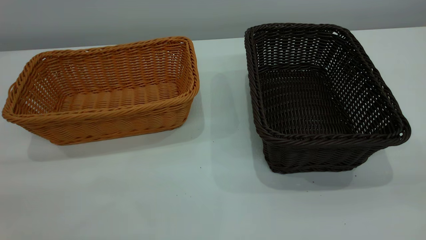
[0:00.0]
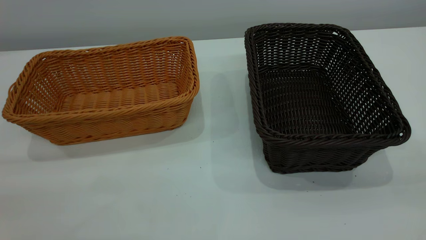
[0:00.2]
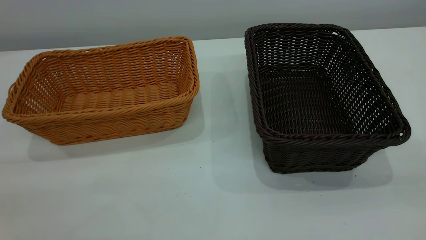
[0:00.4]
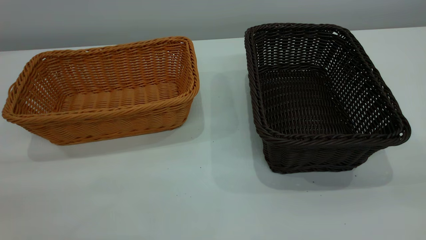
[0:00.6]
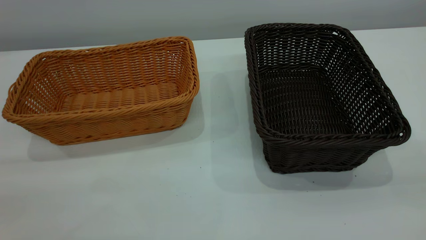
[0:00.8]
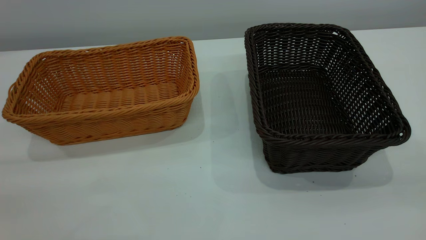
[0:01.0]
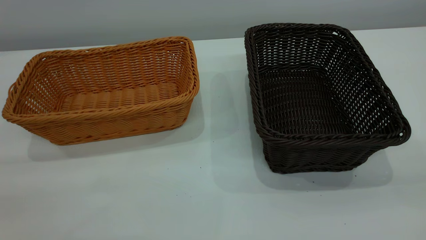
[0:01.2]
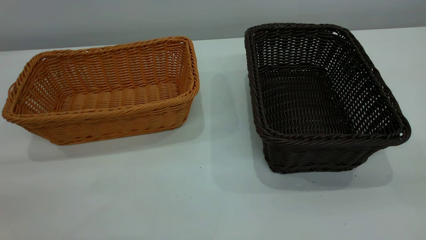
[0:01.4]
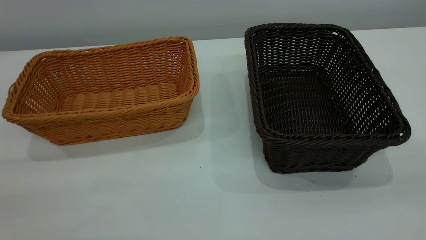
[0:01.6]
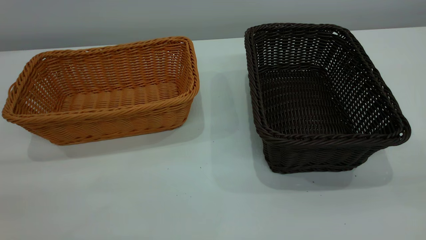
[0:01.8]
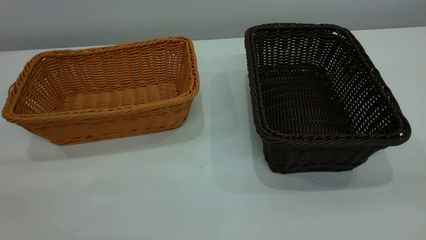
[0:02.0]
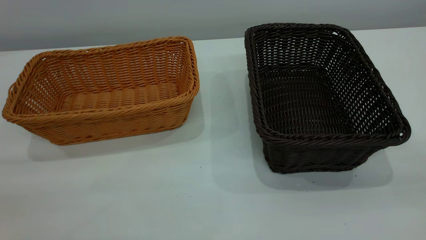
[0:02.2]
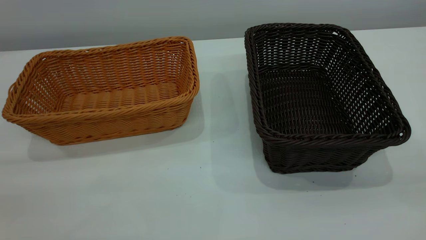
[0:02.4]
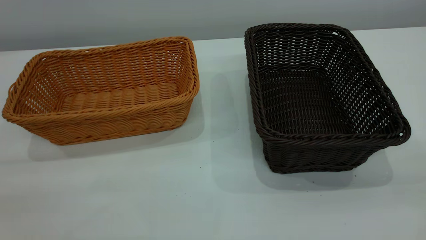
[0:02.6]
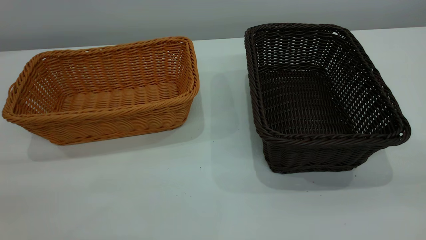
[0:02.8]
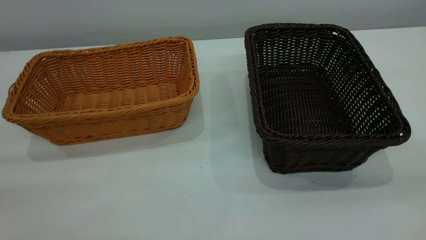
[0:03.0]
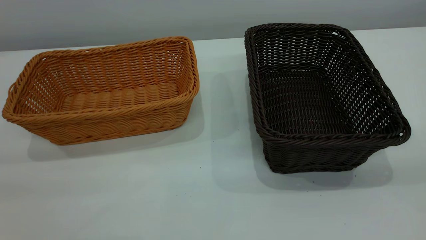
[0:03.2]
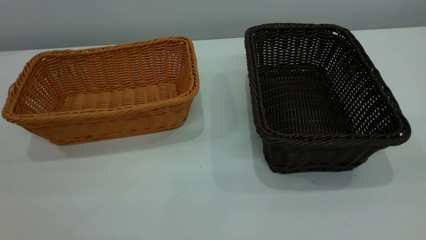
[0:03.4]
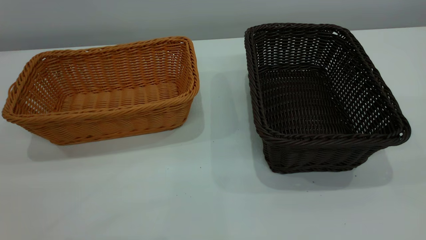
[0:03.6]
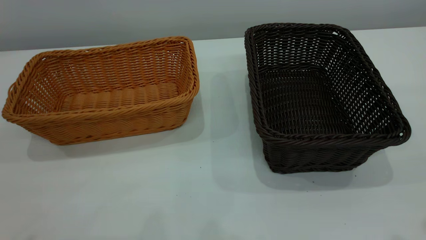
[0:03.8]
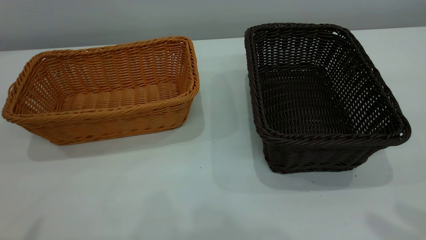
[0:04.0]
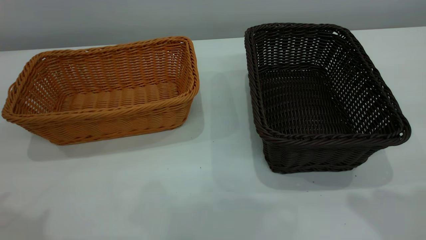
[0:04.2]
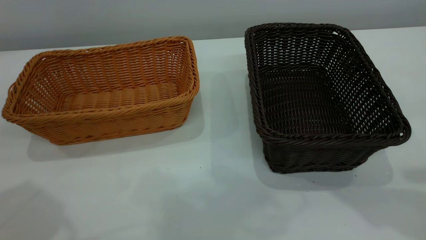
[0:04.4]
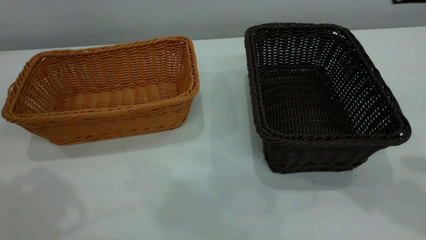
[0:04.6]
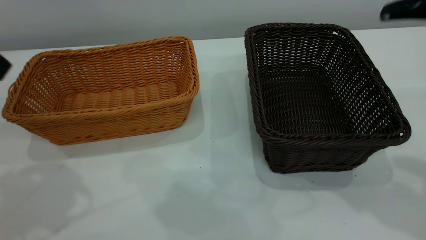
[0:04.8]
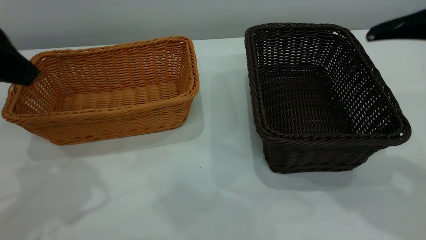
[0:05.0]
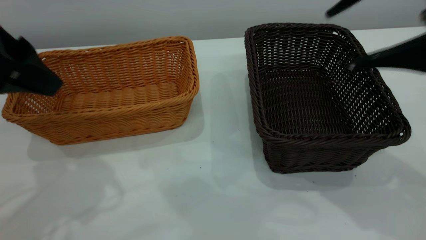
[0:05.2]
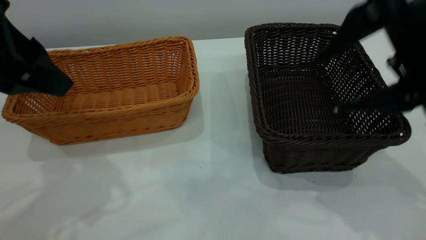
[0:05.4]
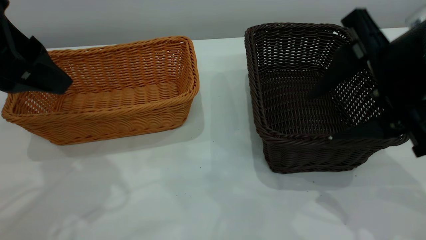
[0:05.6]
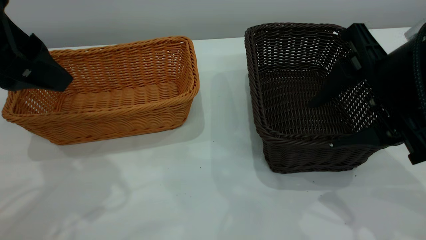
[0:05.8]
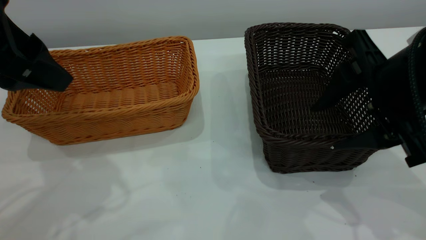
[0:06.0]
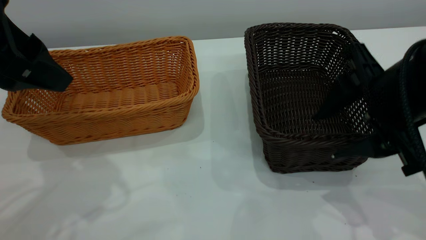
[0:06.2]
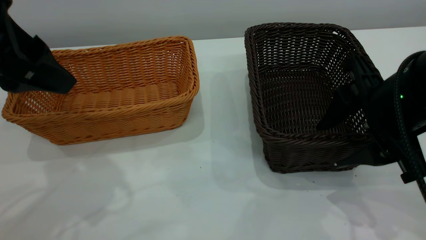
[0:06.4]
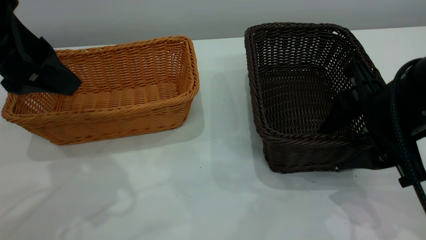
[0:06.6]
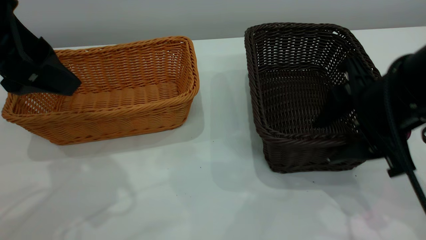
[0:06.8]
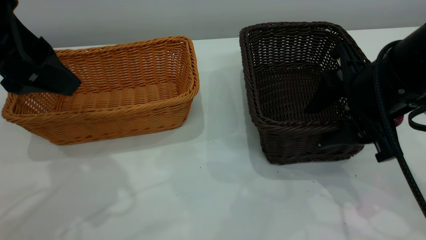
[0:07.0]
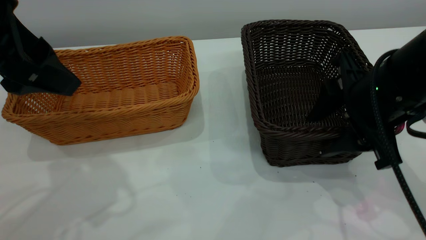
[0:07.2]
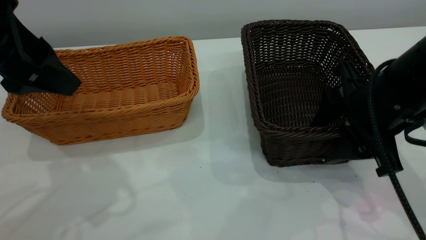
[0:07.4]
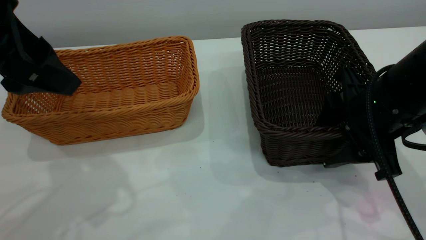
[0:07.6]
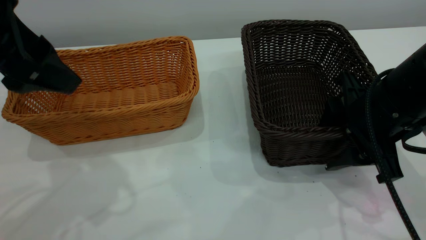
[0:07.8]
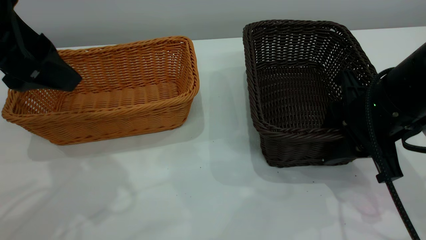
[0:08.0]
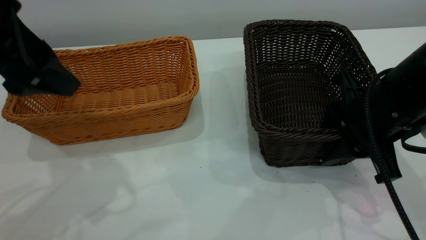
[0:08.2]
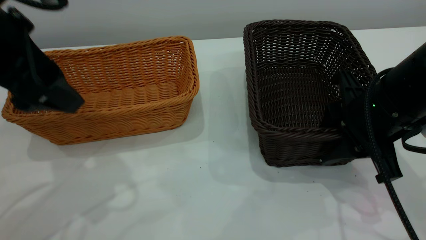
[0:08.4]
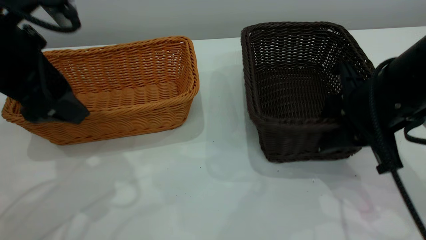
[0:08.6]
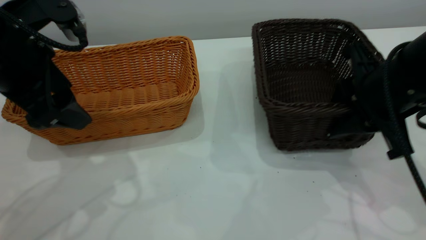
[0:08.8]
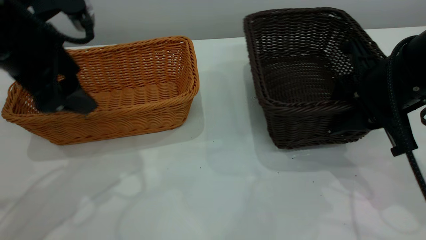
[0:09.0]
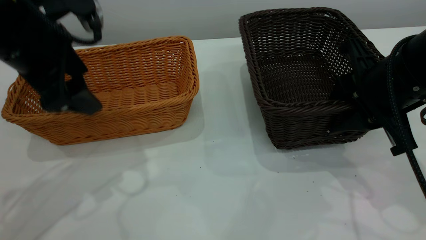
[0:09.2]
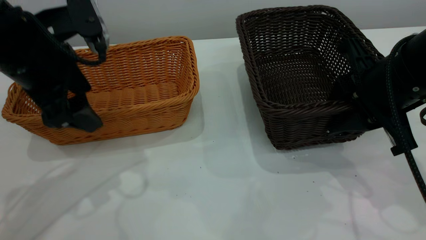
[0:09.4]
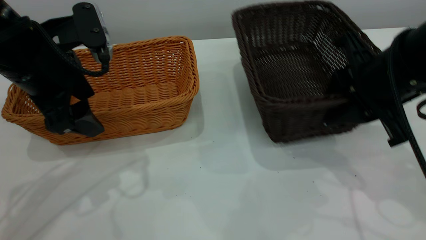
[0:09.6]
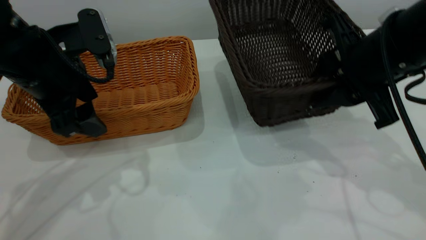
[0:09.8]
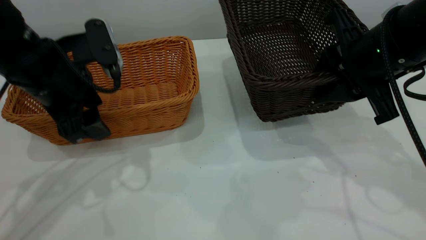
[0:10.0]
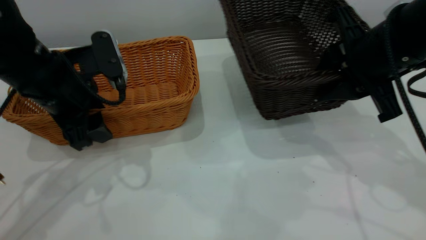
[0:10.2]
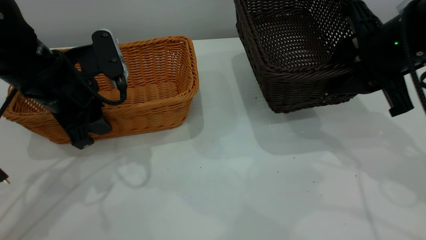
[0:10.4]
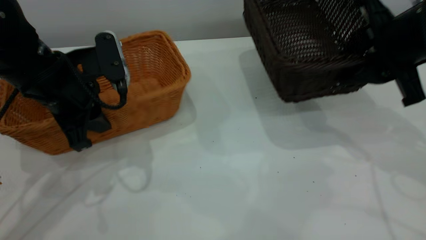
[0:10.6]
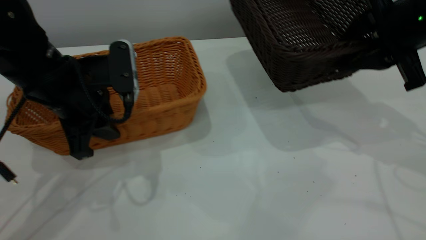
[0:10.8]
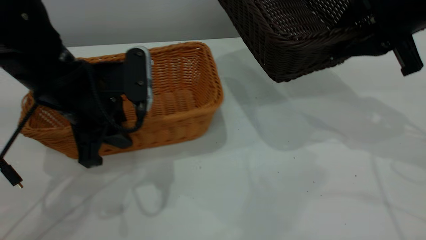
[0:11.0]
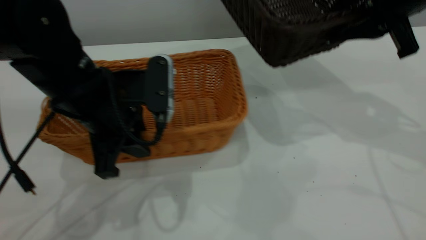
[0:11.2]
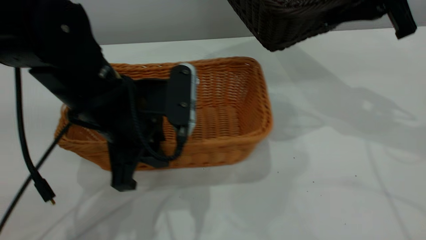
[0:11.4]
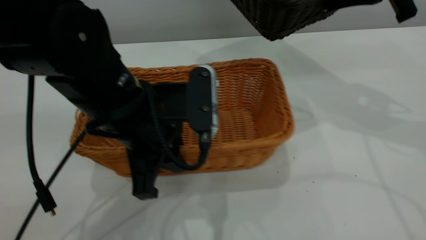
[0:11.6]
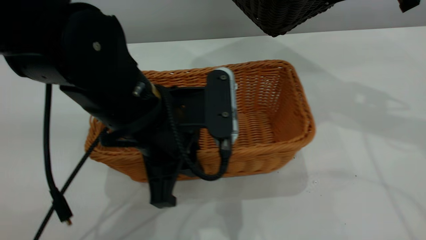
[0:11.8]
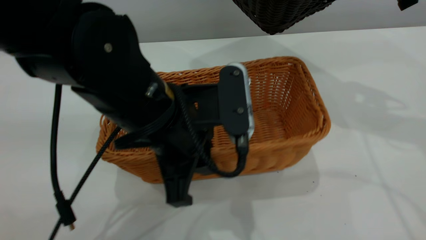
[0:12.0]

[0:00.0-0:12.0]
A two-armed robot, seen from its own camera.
Task of the whole recording: the left gripper grasp the brown basket and place it in the center of the table, the right gripper grasp the black basket and place it inside the brown one.
Step, 0:00.0 to 0:10.4: Pick up the light basket with the right gripper.
0:00.0 to 0:01.6: The two grippers keep their place.
0:04.4 to 0:06.0: The left gripper goes roughly 10 cm downward and forward. Meanwhile the right gripper shifts roughly 15 cm downward.
0:06.0 to 0:07.6: The right gripper moves downward, some 5 cm.
0:07.6 to 0:09.0: The right gripper closes. Meanwhile the left gripper shifts by about 5 cm.
0:09.0 to 0:10.4: The left gripper is displaced downward by about 10 cm, and closes.
0:10.4 to 0:12.0: The right gripper moves upward and forward, roughly 10 cm. The left gripper heads to the right and backward, covering some 15 cm.

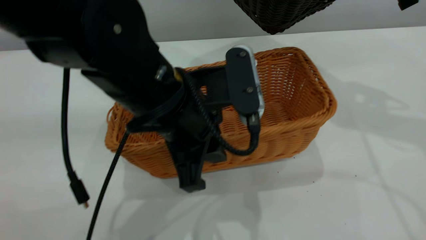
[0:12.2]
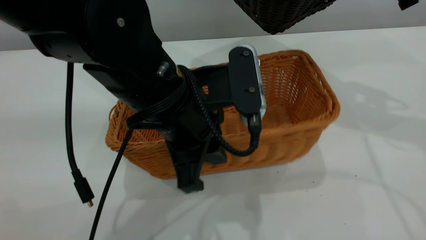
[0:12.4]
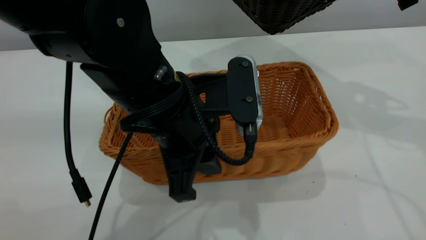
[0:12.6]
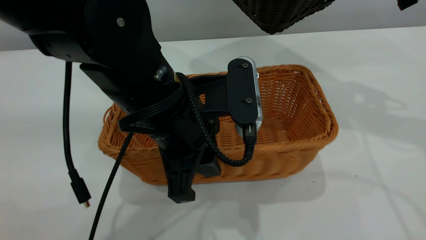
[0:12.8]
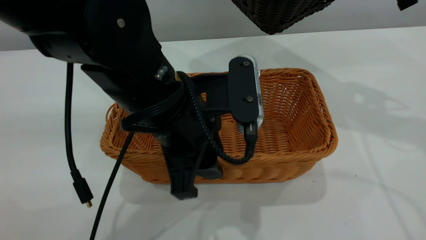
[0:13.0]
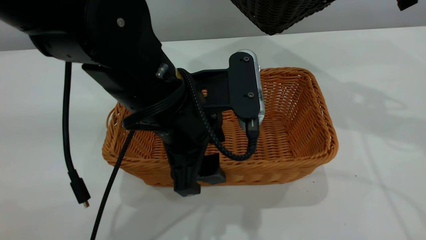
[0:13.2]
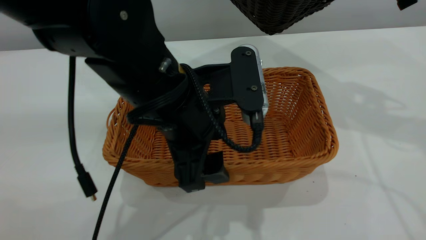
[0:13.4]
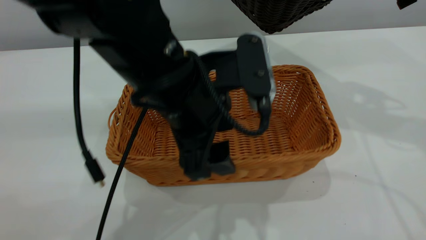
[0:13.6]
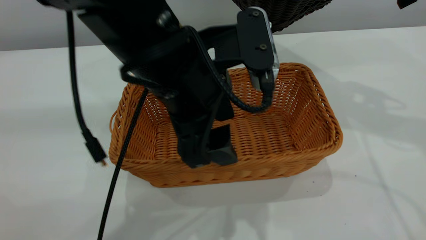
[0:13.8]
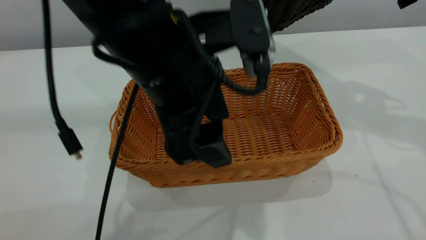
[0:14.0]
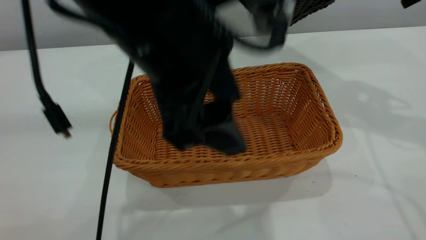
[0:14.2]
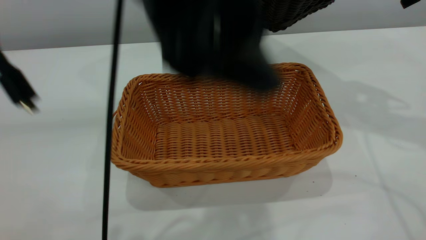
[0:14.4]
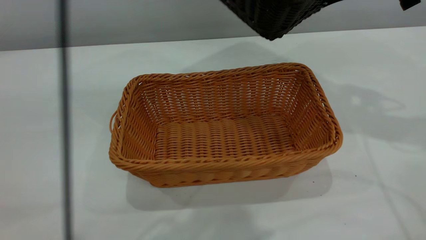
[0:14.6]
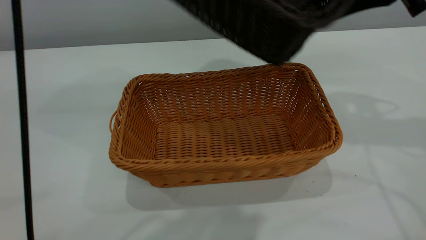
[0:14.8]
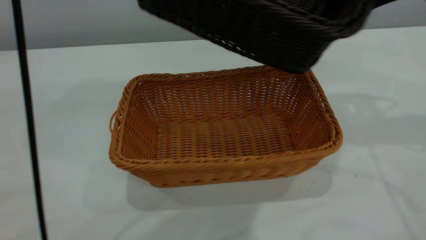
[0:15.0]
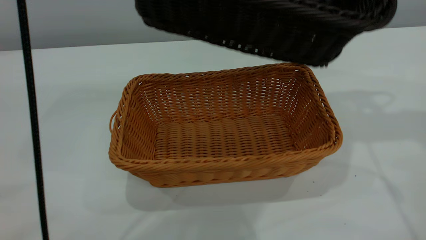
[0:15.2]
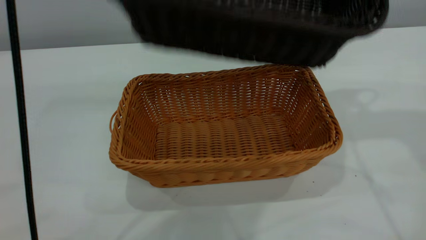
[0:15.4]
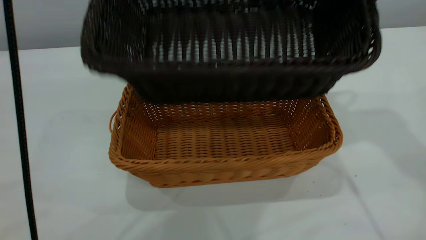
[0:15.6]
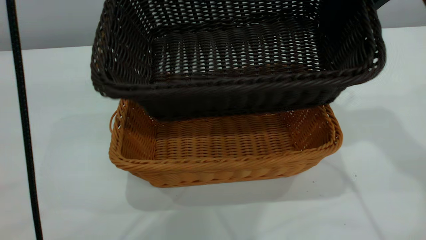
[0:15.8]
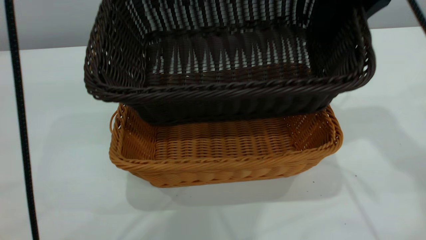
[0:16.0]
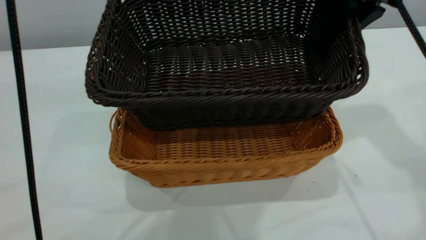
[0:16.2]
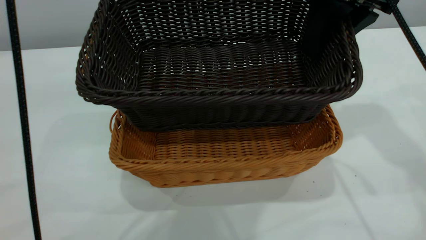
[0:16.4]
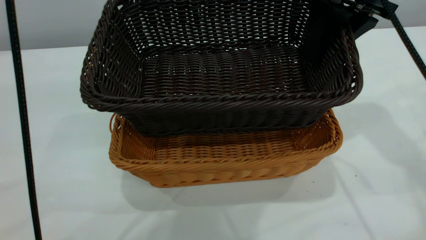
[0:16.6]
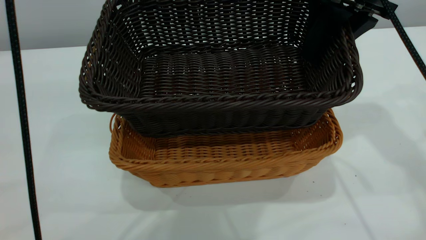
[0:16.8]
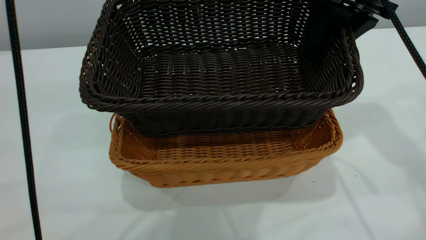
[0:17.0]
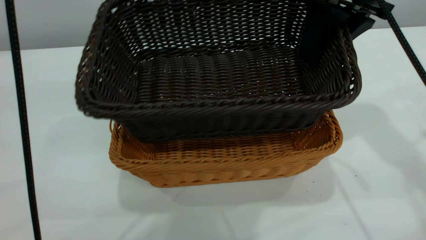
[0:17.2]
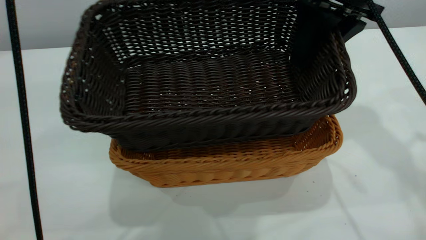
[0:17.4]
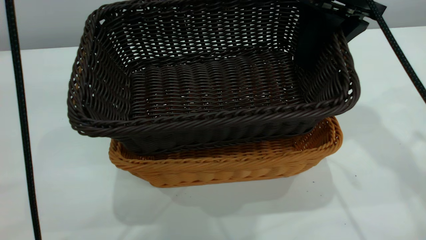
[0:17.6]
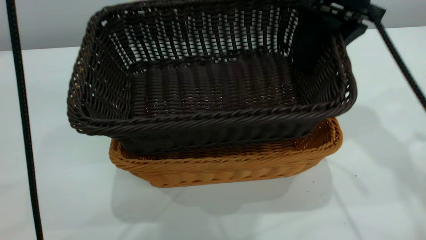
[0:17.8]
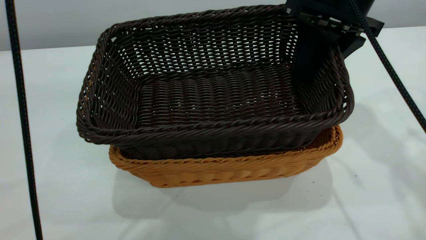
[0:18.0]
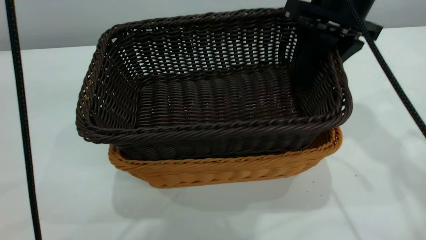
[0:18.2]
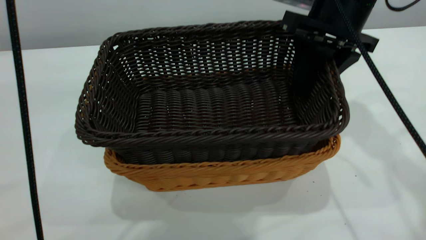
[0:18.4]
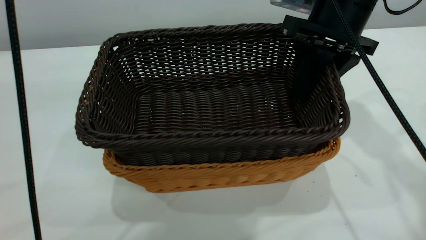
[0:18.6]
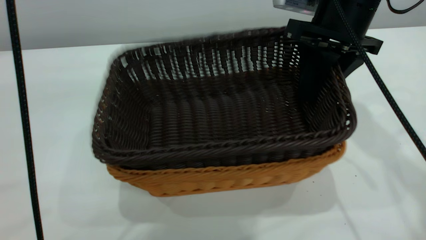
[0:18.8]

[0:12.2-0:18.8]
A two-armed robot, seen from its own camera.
Task of the whole recording: the left gripper grasp the brown basket and place it in the center of the table, the right gripper grasp the black basket and place it inside the brown one.
Step, 0:12.2 to 0:14.0: Place the light-colored basket in the center.
0:12.2 to 0:13.8: The left gripper opens up.
0:13.8 to 0:15.4: The left gripper heads upward, covering some 25 cm.
0:15.4 to 0:17.2: The right gripper goes approximately 5 cm downward.
